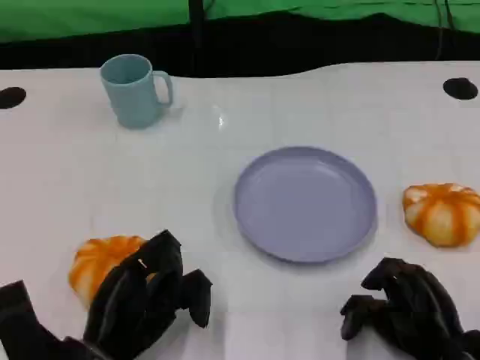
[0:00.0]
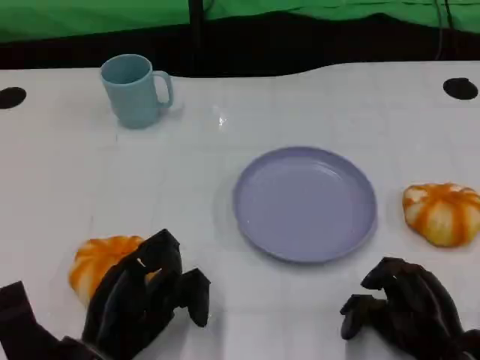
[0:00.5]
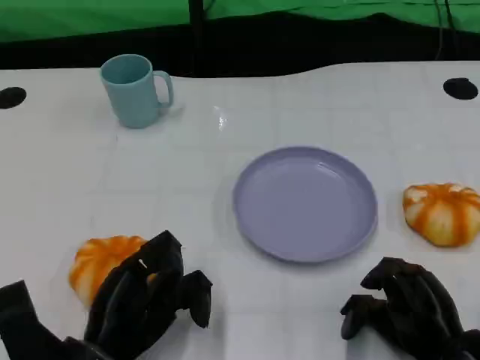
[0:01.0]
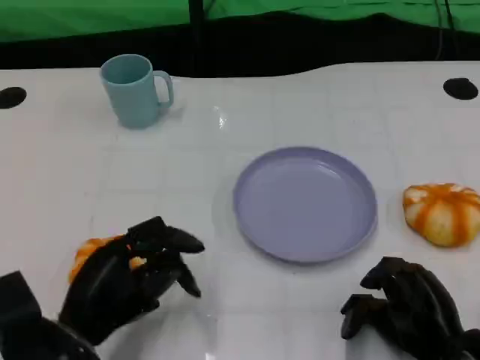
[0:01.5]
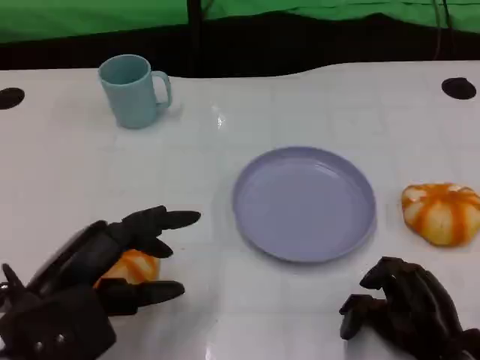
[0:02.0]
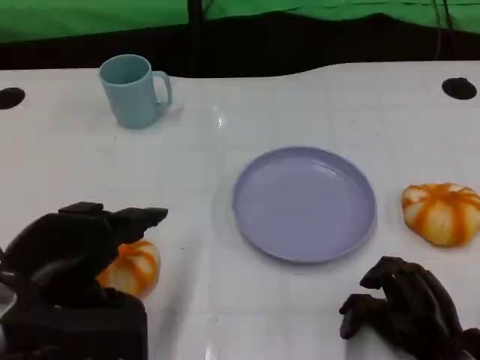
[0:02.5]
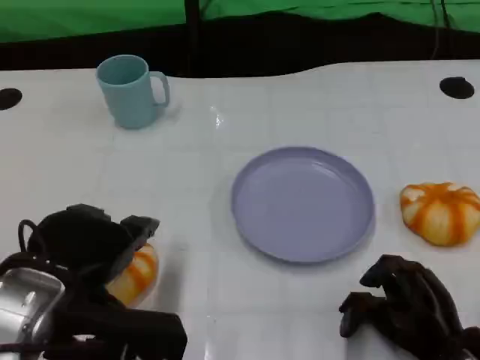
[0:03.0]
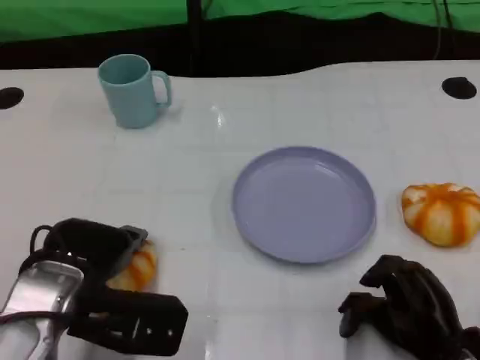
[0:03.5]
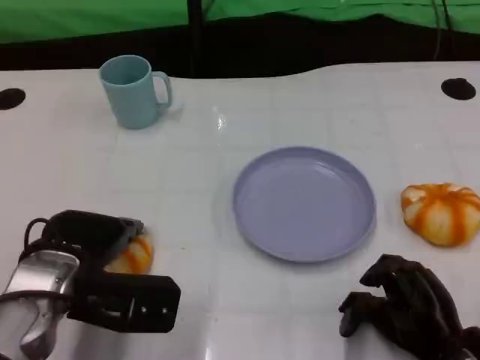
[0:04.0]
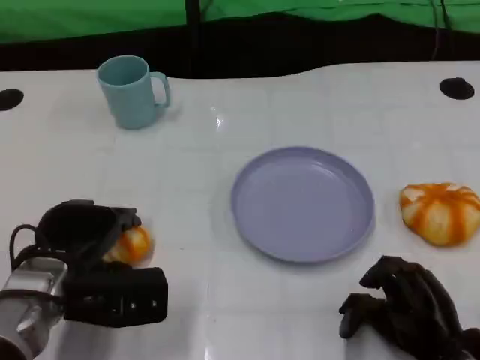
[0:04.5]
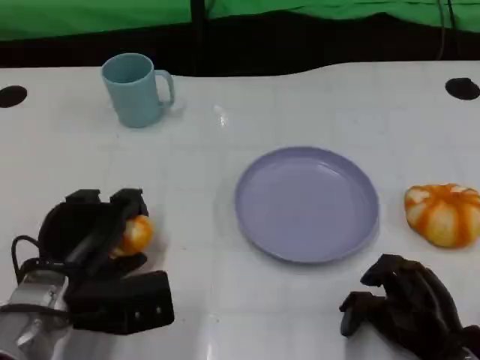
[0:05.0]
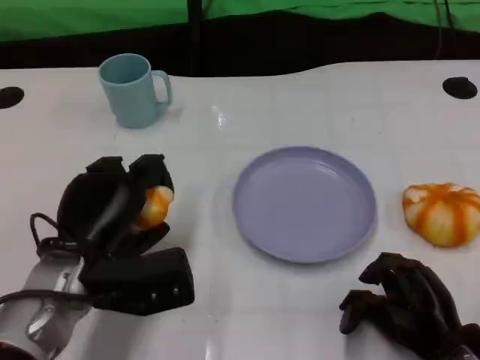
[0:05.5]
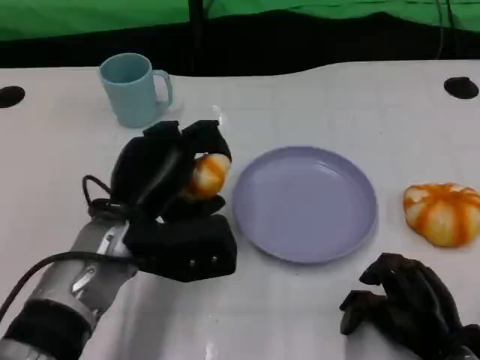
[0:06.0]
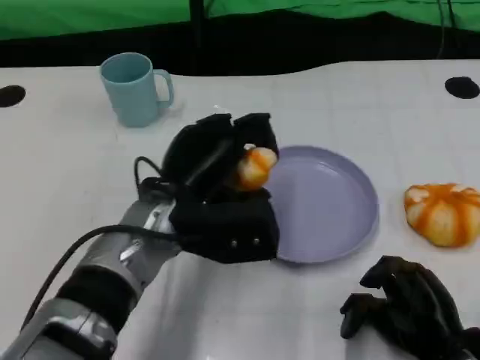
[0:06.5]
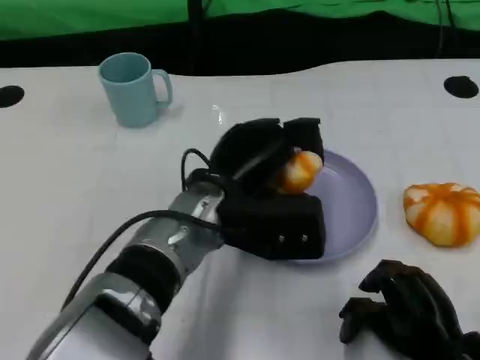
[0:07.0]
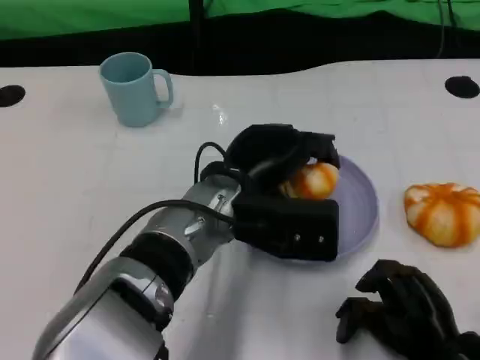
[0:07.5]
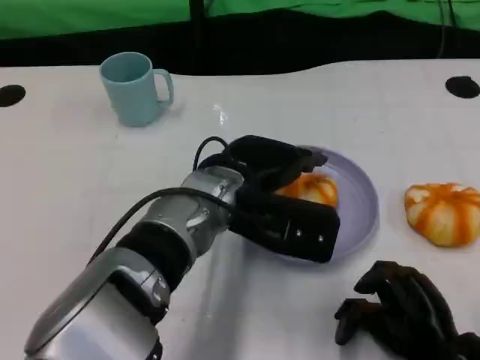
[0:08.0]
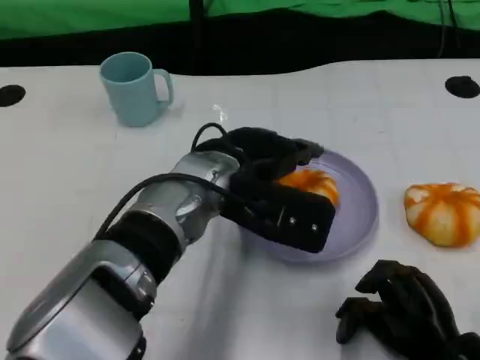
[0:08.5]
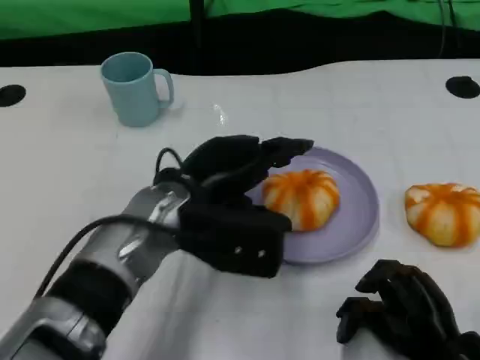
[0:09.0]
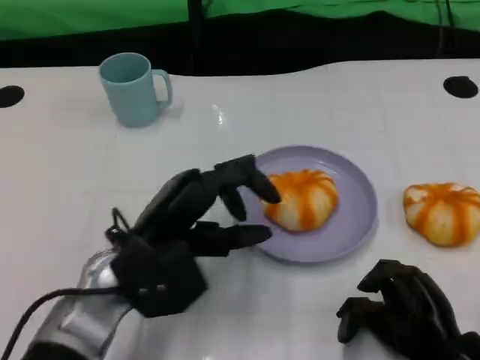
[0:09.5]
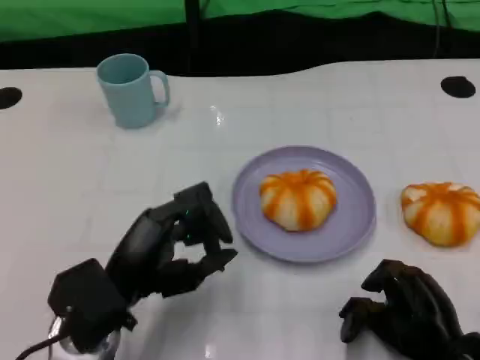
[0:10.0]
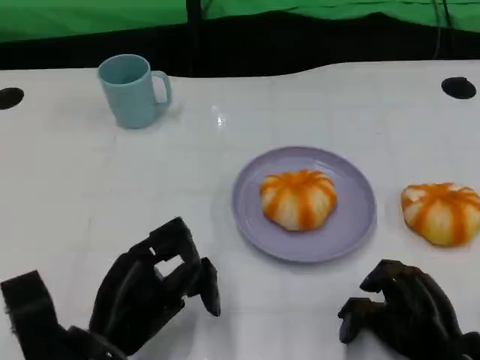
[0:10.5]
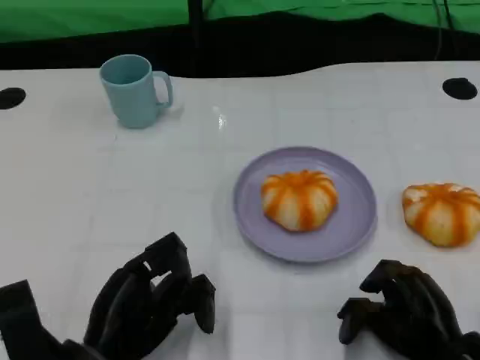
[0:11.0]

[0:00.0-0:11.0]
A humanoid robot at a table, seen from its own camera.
Task of the whole recording: Grasp the bread from the table and place it into the plate.
0:00.0 to 0:02.0: The left hand is displaced upward by some 10 cm.
0:02.0 to 0:03.5: The left hand changes place by some 5 cm.
0:05.5 to 0:07.5: The left hand shifts approximately 15 cm to the right.
0:07.5 to 0:09.0: The left hand goes approximately 5 cm to the left.
0:09.0 to 0:11.0: The left hand moves backward, downward and to the left, some 15 cm.

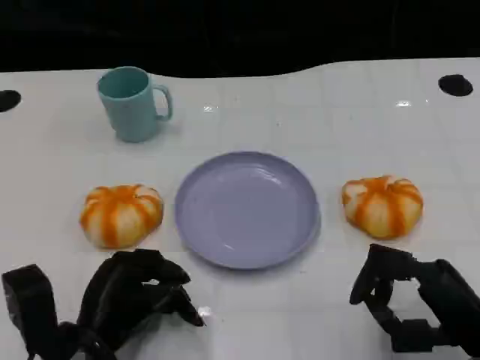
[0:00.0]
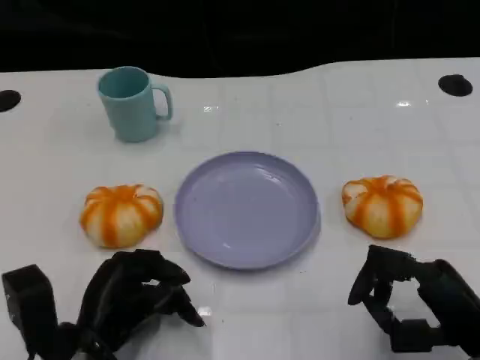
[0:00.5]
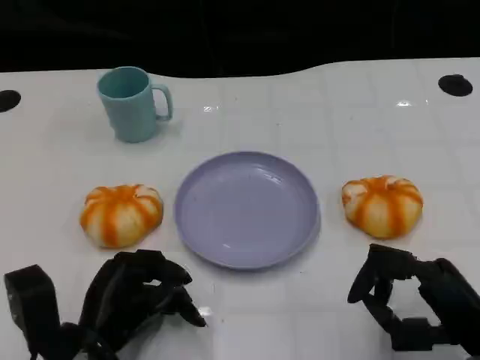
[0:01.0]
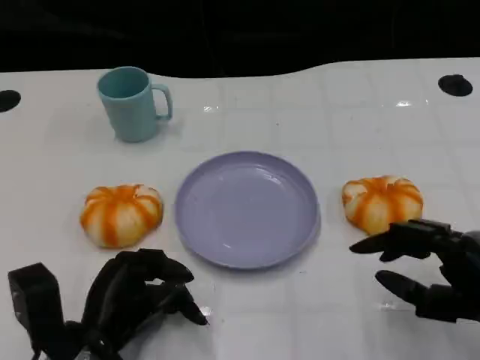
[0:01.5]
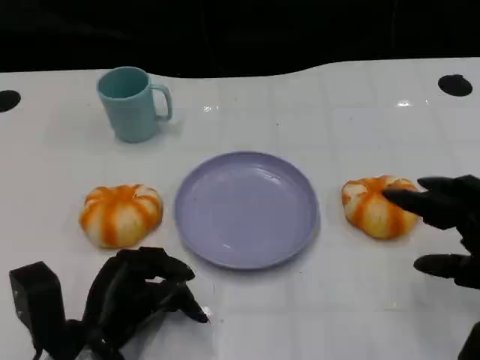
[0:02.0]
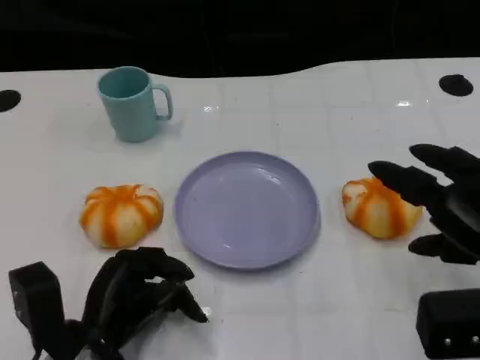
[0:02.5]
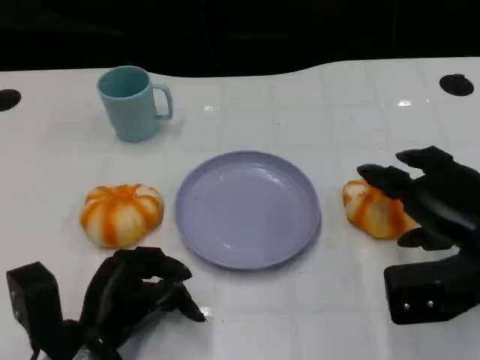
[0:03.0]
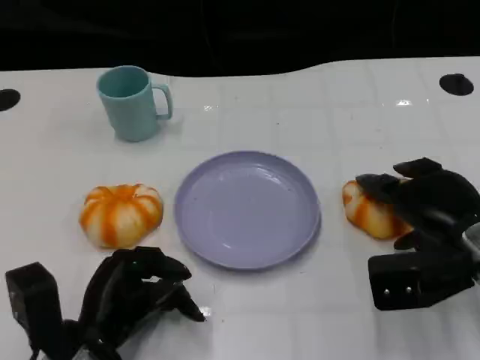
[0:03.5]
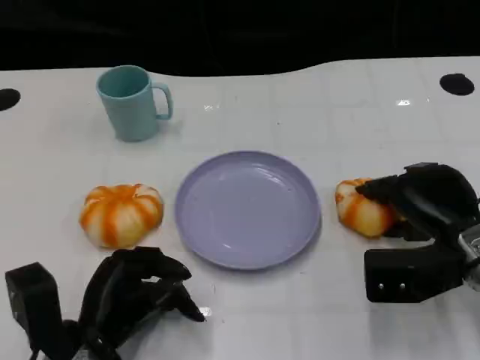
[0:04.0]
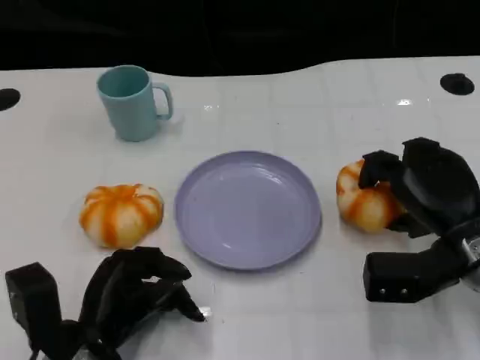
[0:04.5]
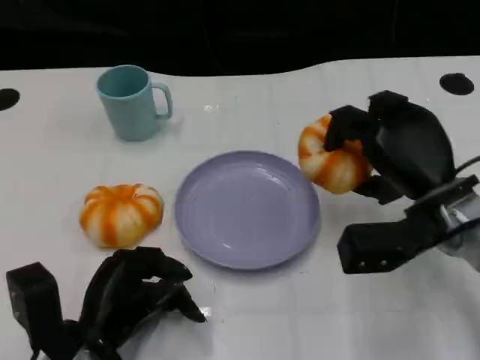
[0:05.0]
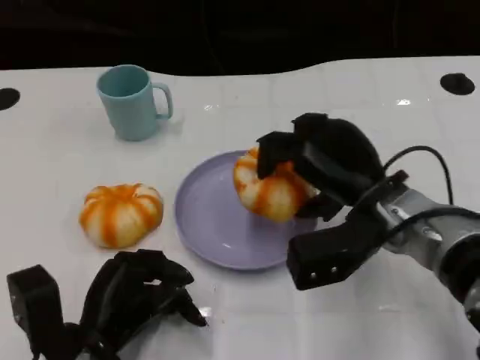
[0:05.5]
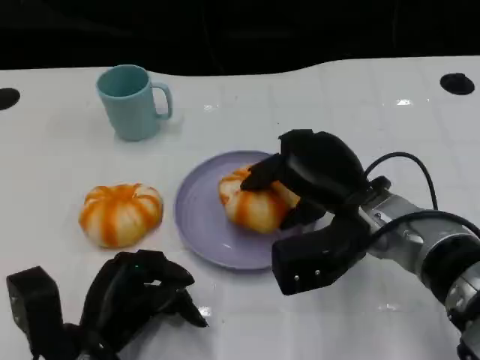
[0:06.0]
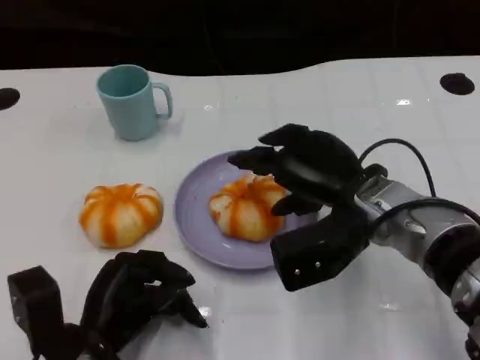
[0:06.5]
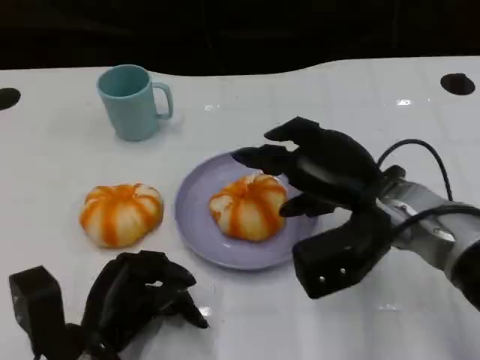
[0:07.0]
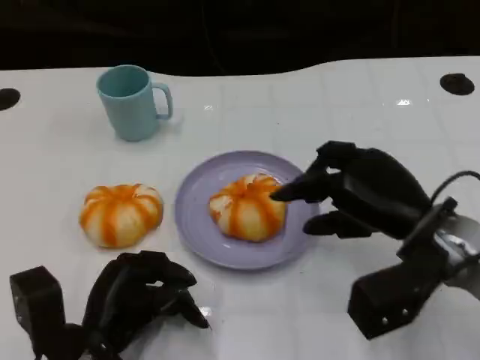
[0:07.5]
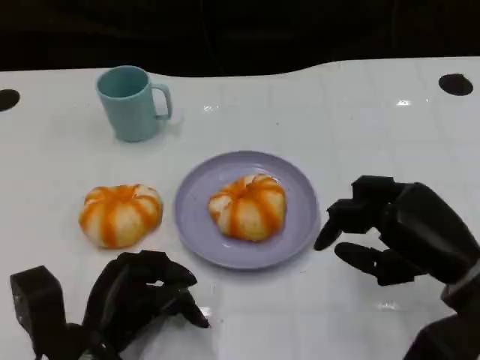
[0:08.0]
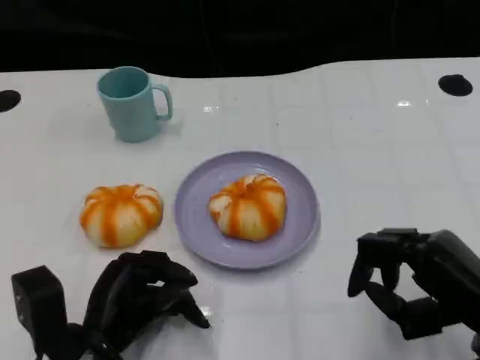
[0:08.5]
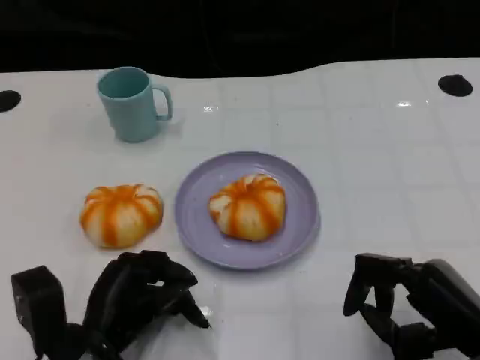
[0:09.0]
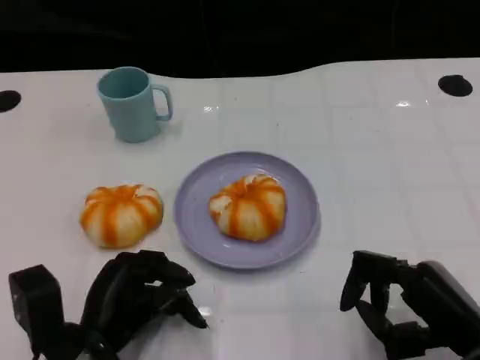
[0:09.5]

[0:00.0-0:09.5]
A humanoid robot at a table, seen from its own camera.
Task of the whole recording: Grasp the bread from the table and place it into the plate.
0:00.0 to 0:02.0: The right hand is displaced upward by approximately 5 cm.
0:02.0 to 0:04.0: The right hand shifts about 15 cm forward, downward and to the left.
0:04.0 to 0:05.5: The right hand shifts approximately 10 cm to the left.
0:05.5 to 0:07.5: The right hand travels to the right by about 5 cm.
0:07.5 to 0:09.5: The right hand goes roughly 10 cm backward.

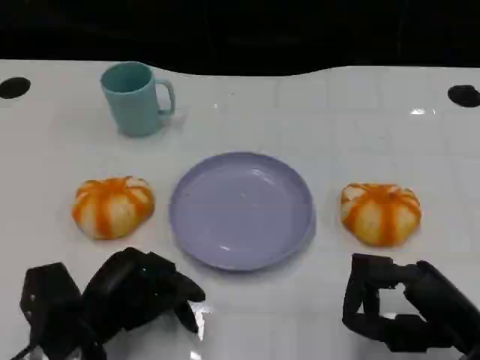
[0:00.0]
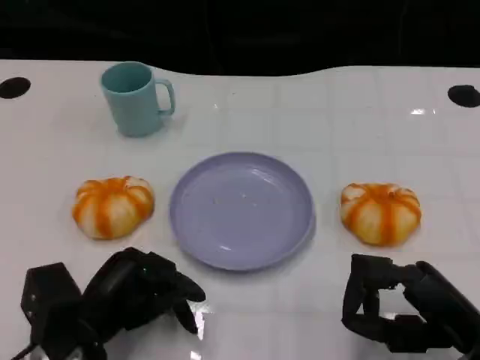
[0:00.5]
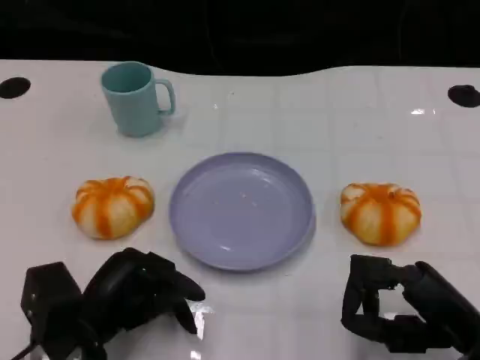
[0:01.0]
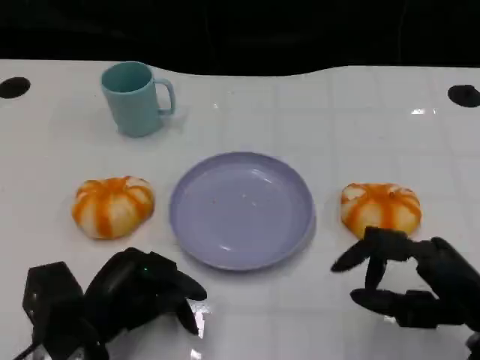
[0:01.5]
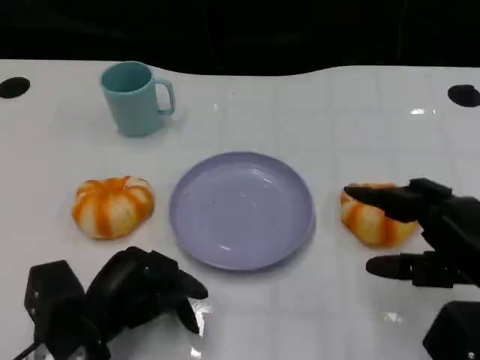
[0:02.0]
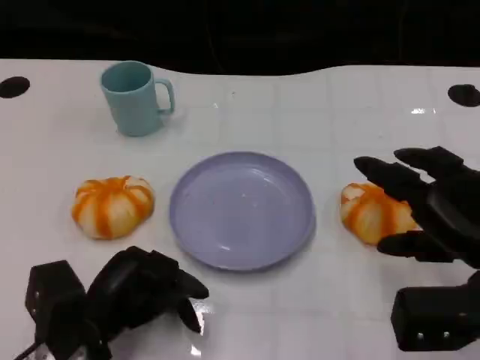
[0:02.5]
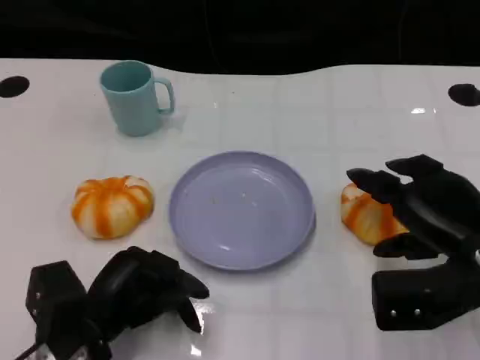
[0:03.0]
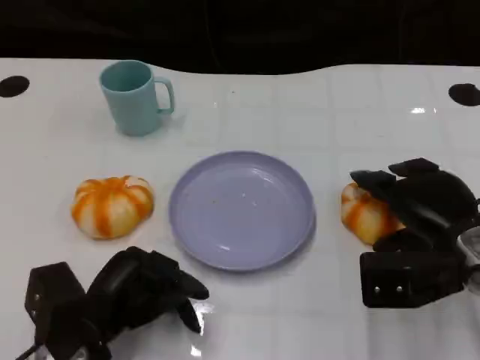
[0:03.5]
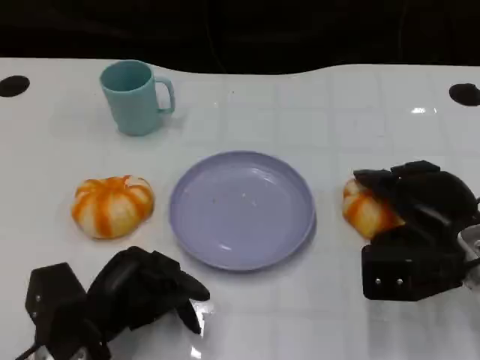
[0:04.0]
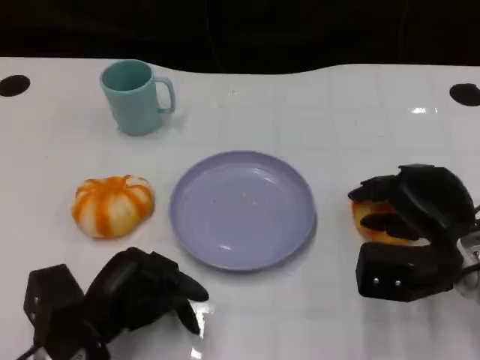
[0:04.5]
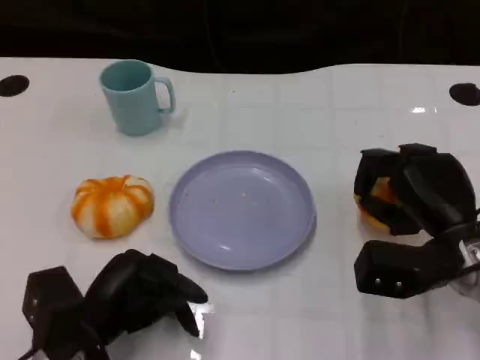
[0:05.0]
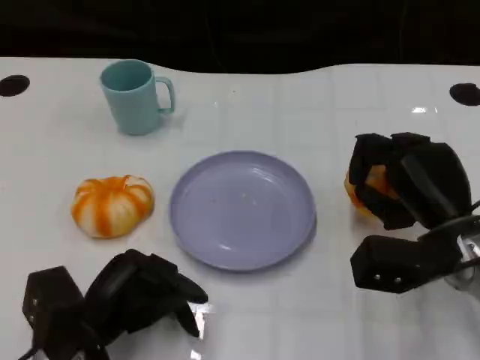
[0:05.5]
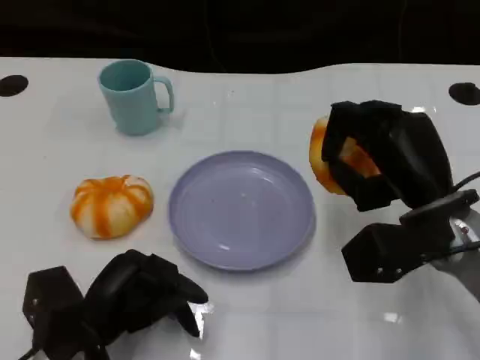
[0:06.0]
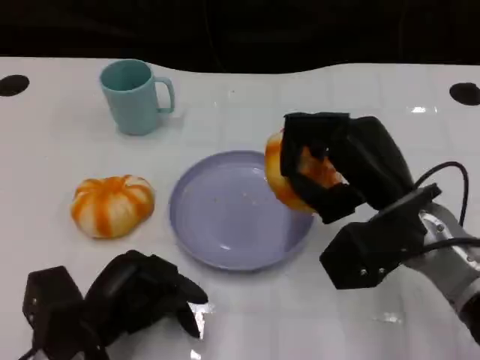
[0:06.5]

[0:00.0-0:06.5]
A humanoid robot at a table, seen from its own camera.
Task of the whole recording: Grasp the bread from the table and place it into the plate.
0:00.0 to 0:02.0: The right hand shifts approximately 5 cm upward.
0:02.0 to 0:04.5: The right hand goes roughly 5 cm forward.
0:04.5 to 0:06.5: The right hand is displaced to the left and upward by about 10 cm.
